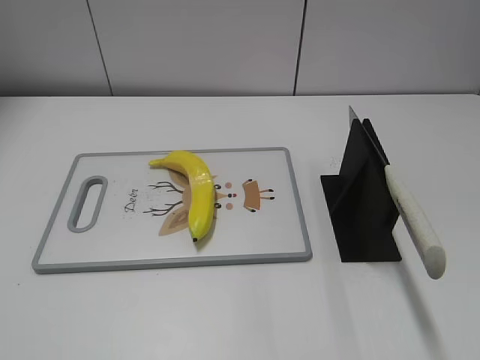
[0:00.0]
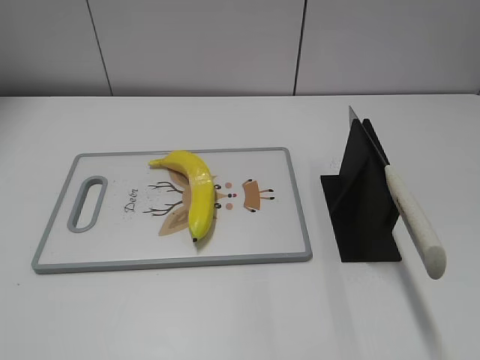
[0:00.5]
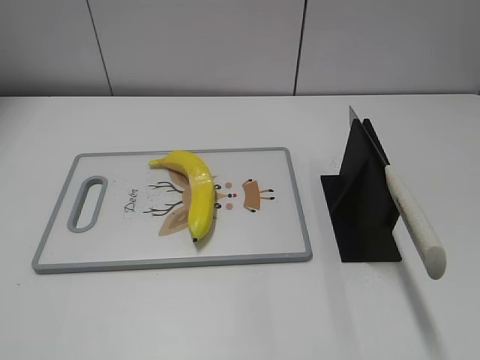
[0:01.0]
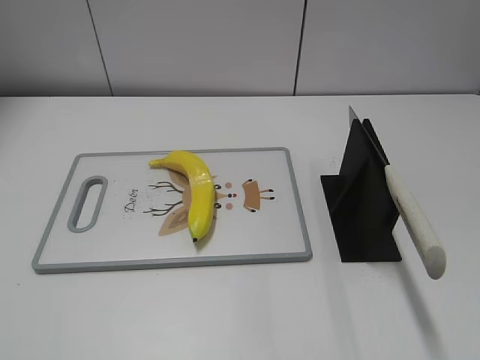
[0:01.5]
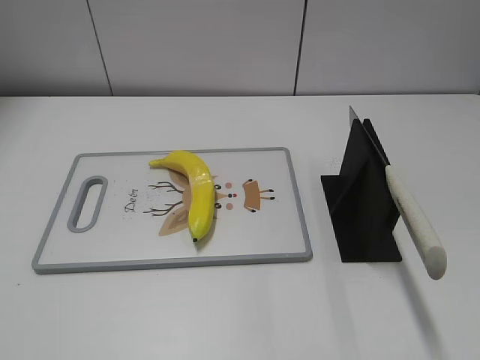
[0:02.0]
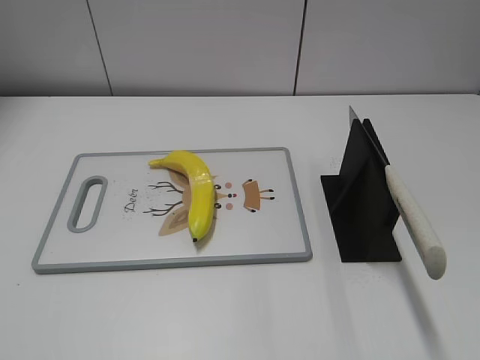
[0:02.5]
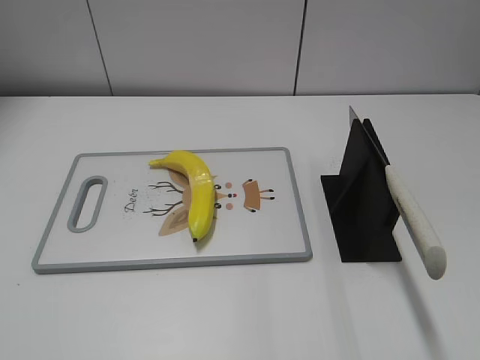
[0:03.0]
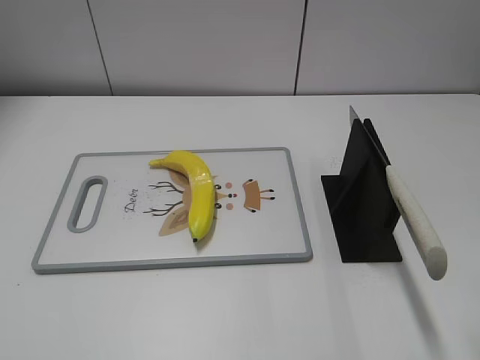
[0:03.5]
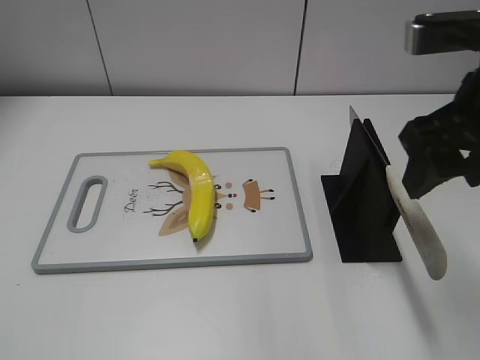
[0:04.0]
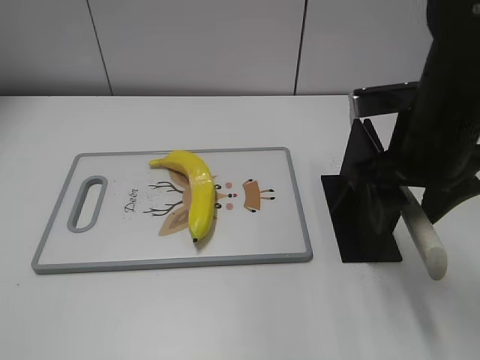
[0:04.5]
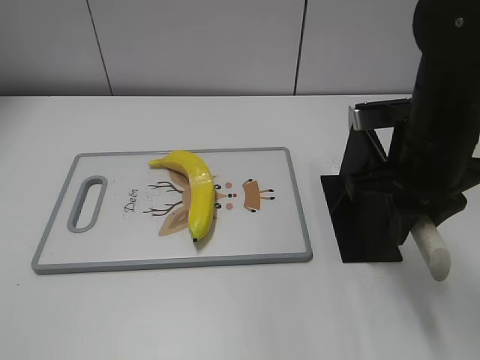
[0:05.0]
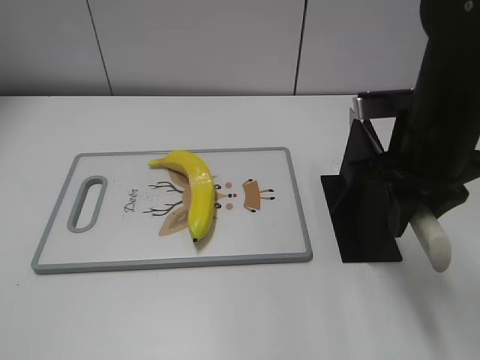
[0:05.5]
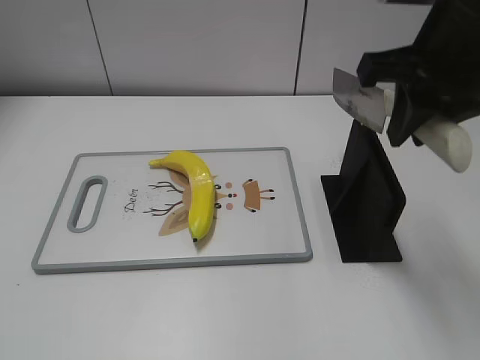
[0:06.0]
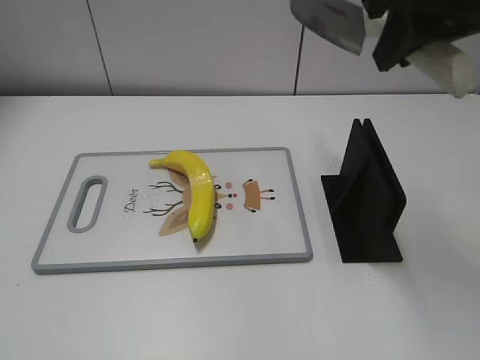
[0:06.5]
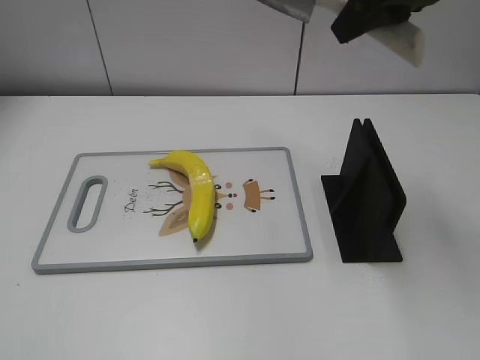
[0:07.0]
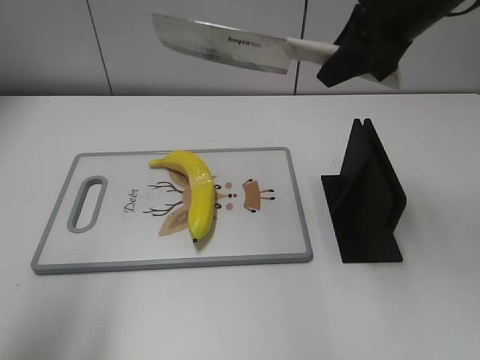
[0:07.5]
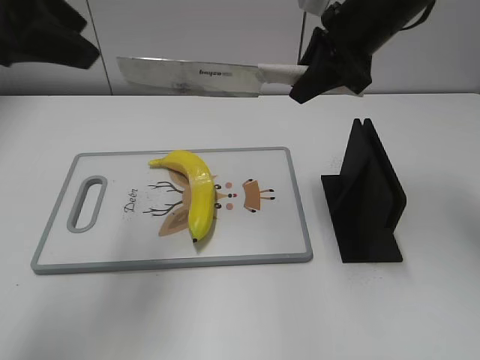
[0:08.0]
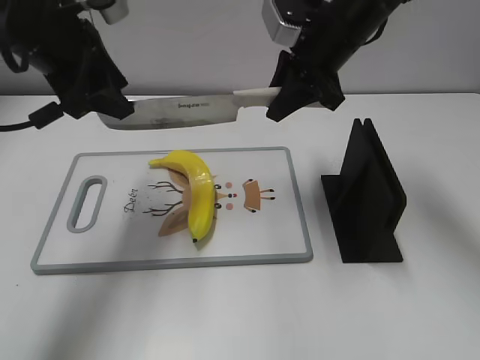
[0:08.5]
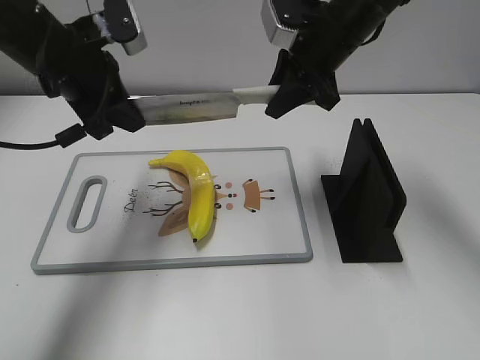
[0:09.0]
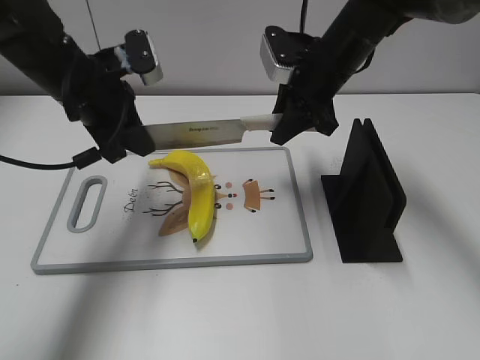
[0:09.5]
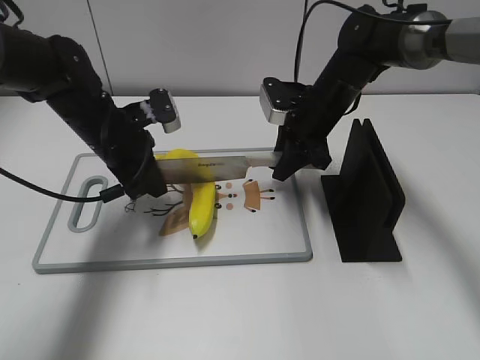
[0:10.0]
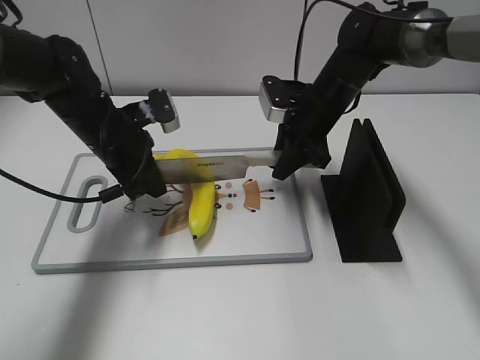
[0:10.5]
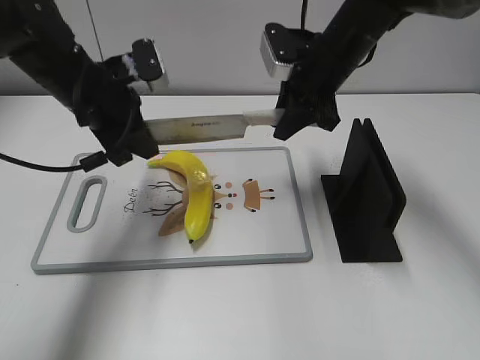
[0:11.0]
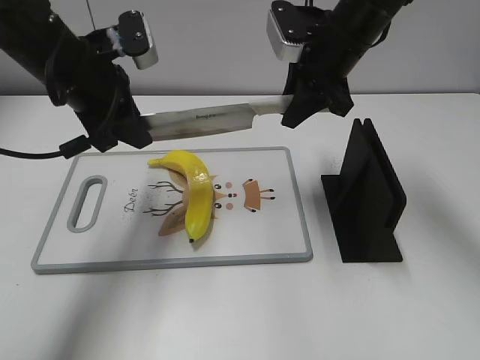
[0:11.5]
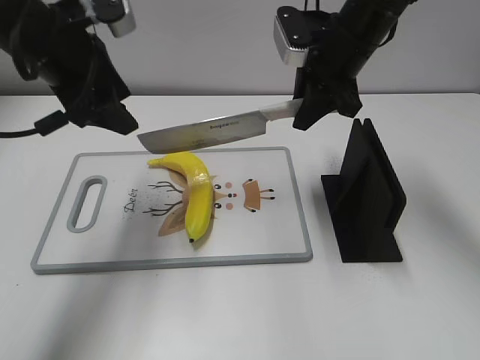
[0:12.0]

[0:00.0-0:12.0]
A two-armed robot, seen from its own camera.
Task of the whole recording: cut plastic banana.
Step, 0:00.0 to 0:06.0: Grab the knife handle with your right hand.
Step, 0:06.5 to 0:11.0: Lift the knife with your right hand.
0:02.0 to 0:04.0: The right gripper travels forward and to the left by approximately 25 cm.
0:04.0 to 0:06.0: The right gripper reaches some 10 cm downward, then returns, and closes its fingers.
0:06.0 to 0:08.0: The left gripper moves forward, roughly 30 cm; the right gripper travels forward by some 15 cm.
0:08.0 to 0:10.0: The left gripper travels downward and forward by about 25 cm, and closes up, while the right gripper moves downward, some 15 cm.
0:10.0 to 0:12.0: The two grippers go about 15 cm upward. The left gripper opens up.

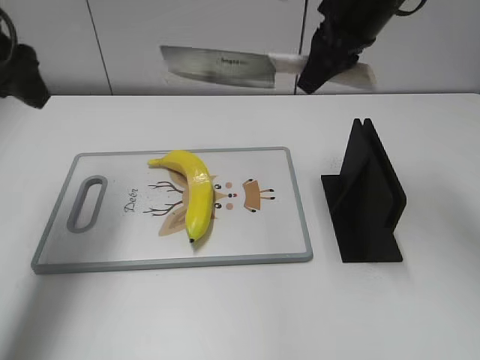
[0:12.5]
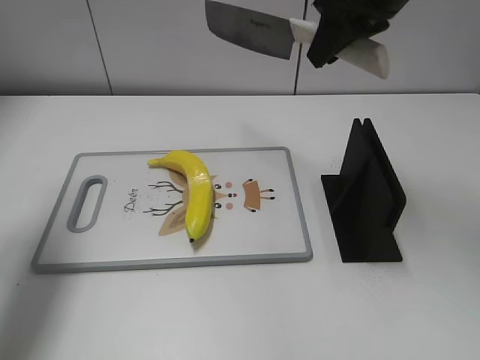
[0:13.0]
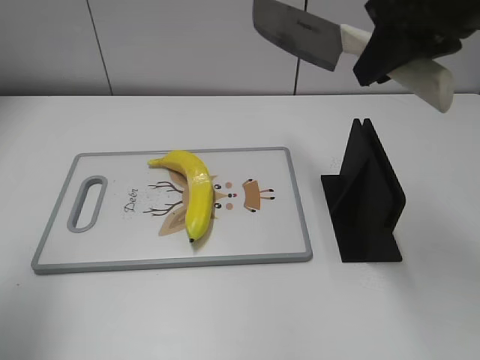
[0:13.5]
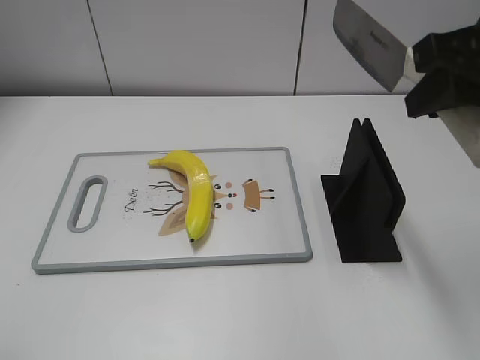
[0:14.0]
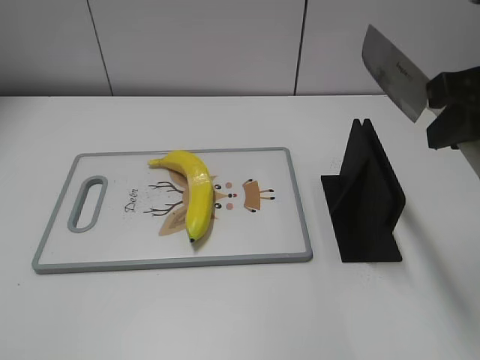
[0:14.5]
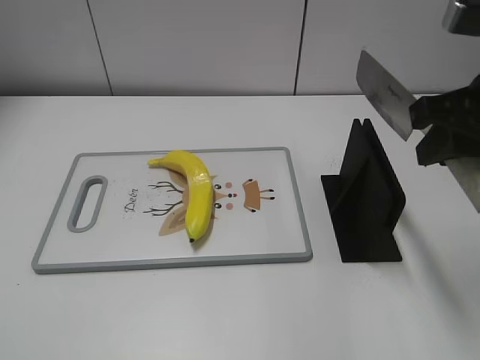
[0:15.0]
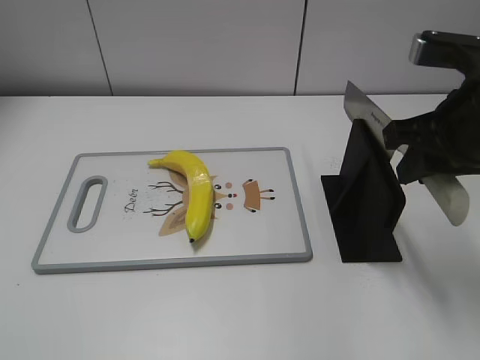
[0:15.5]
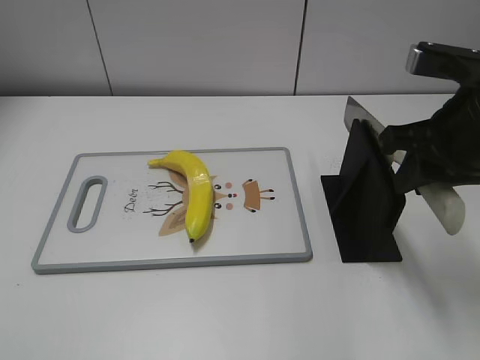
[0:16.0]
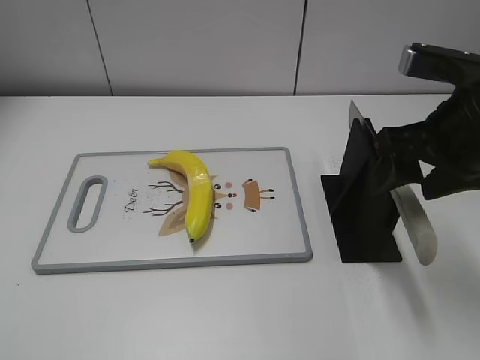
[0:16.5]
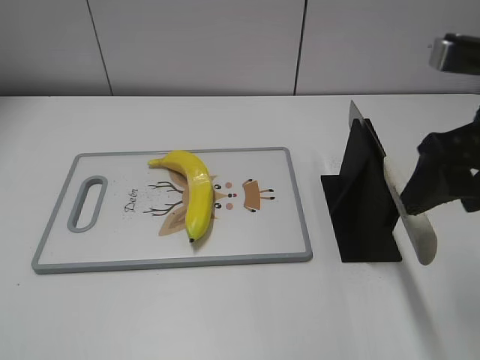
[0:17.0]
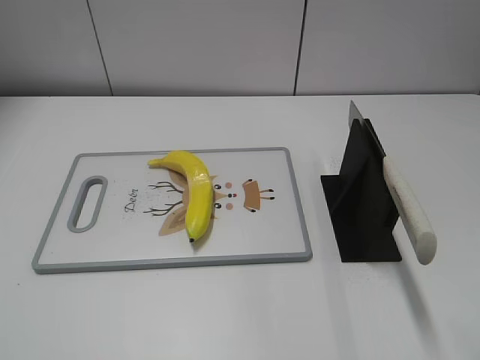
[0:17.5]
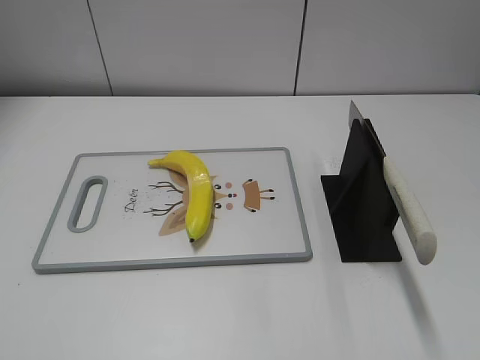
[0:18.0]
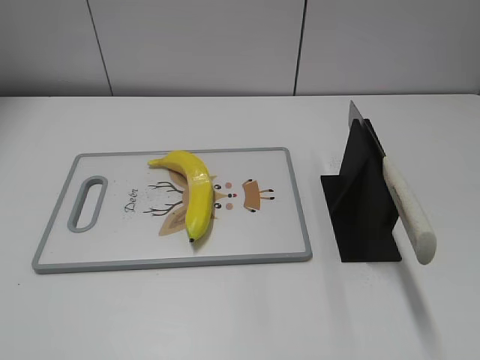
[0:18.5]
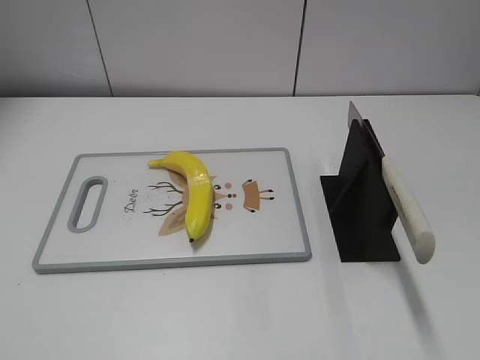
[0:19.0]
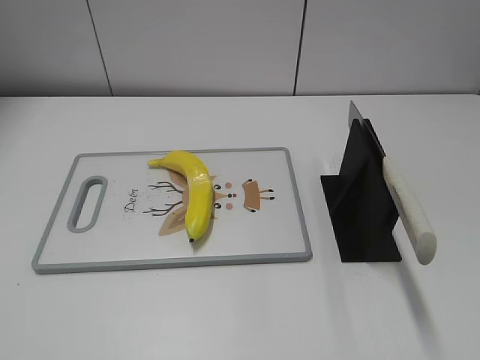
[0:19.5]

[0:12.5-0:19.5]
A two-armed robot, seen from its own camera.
Task of the whole recording: cut plastic banana.
Step, 0:12.5 to 0:14.0: Lift the knife with your right hand.
Step, 0:14.5 to 0:19.5: Place the knife on the storage rack with your right hand.
0:12.5 to 0:14.5: The right gripper is displaced backward and to the right by approximately 20 cm; the left gripper is displaced backward by roughly 35 cm.
0:14.5 to 0:16.0: The right gripper heads downward, covering approximately 5 cm.
0:16.0 to 0:17.5: The right gripper travels backward and upward by roughly 15 cm, and opens.
